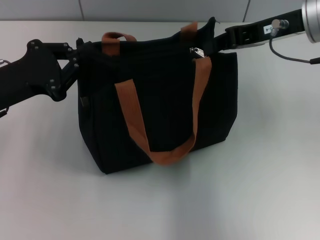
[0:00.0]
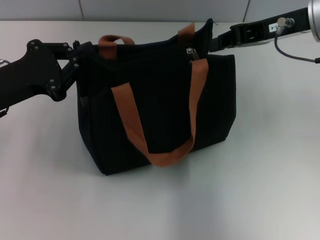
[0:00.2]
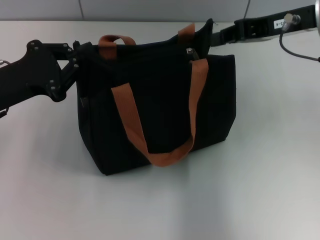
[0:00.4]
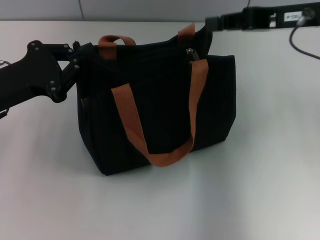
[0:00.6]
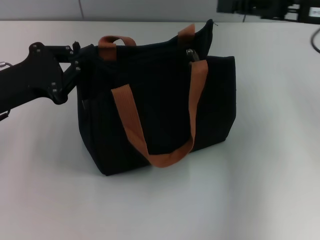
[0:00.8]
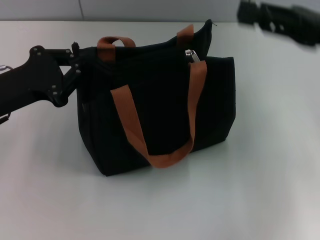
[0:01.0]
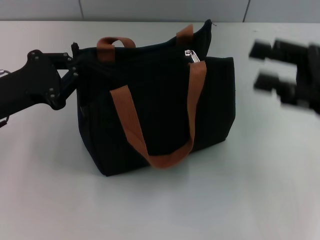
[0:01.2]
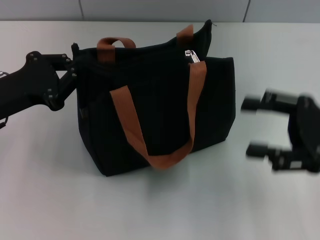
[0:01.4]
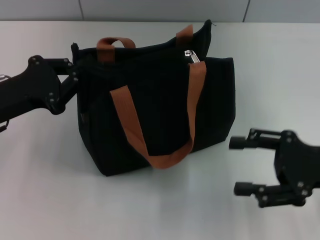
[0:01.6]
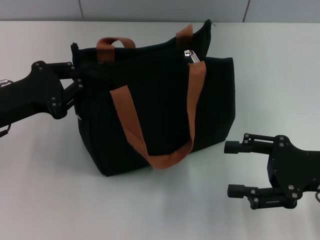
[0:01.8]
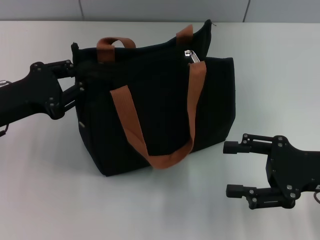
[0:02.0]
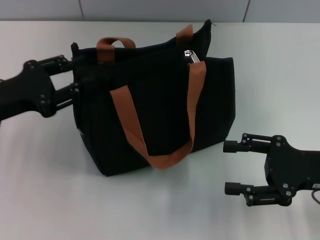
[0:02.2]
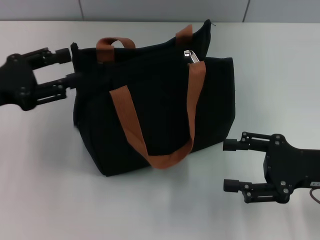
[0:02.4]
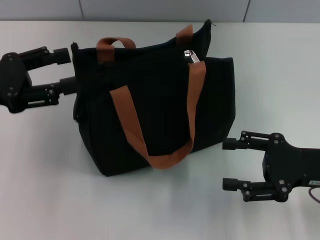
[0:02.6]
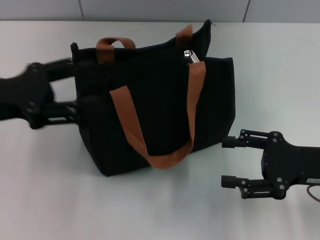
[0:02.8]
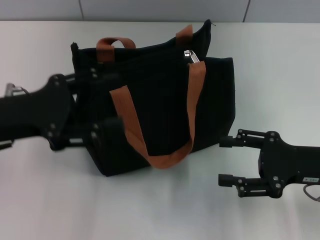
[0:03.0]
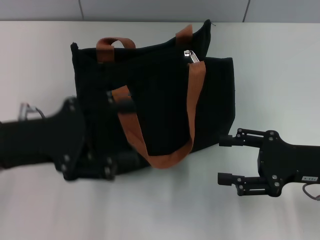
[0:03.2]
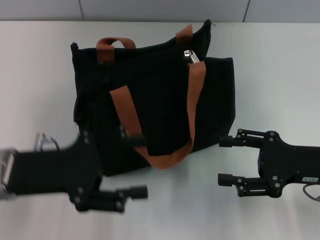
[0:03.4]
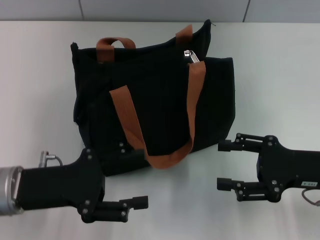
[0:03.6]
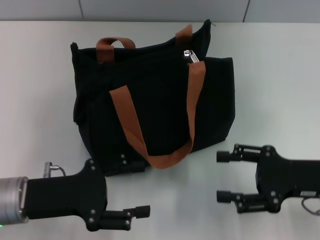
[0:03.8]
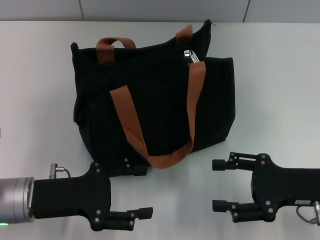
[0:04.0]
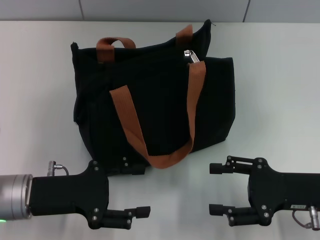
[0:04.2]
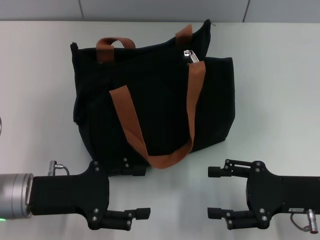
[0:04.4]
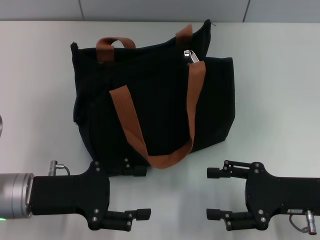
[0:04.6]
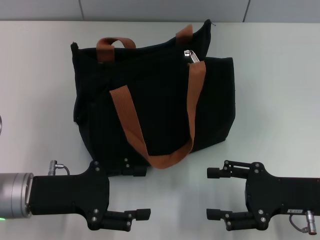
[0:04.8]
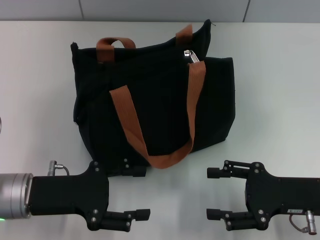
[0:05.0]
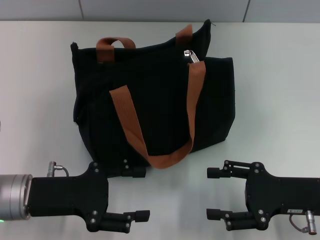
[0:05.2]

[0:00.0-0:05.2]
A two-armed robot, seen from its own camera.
Step, 0:00.4 to 0:02.4: Grab the zipper with your left hand.
0:00.0 to 0:01.8: The right gripper moves backward, downward and to the right, some 20 cm, and opens up.
0:01.8 to 0:03.4: The left gripper goes approximately 5 cm backward, and opens.

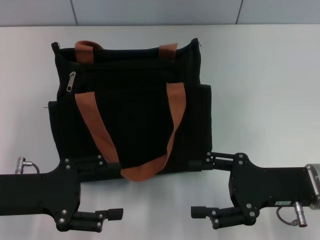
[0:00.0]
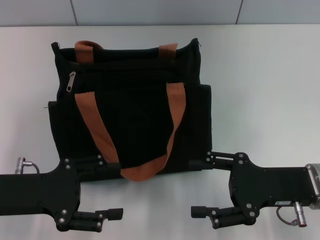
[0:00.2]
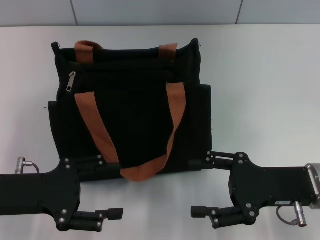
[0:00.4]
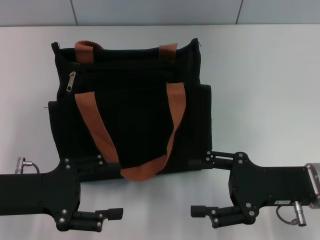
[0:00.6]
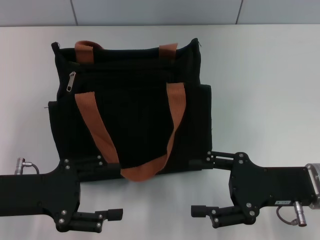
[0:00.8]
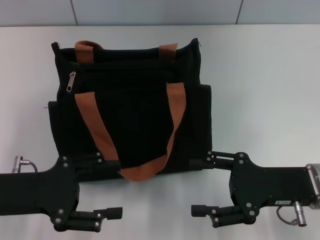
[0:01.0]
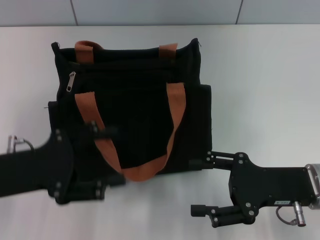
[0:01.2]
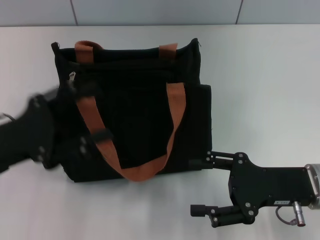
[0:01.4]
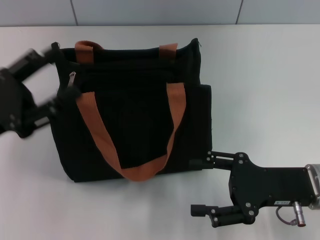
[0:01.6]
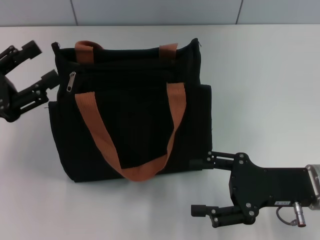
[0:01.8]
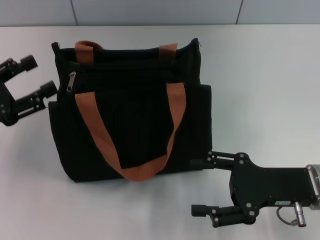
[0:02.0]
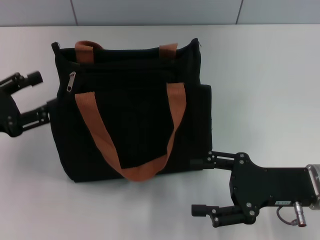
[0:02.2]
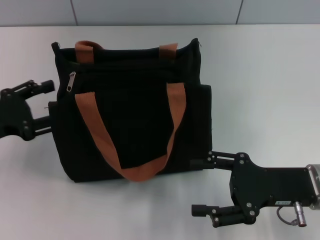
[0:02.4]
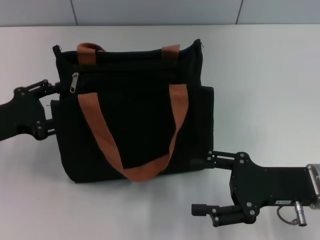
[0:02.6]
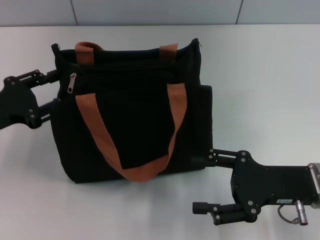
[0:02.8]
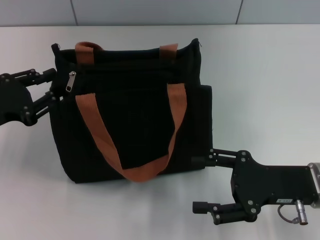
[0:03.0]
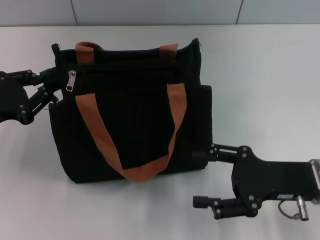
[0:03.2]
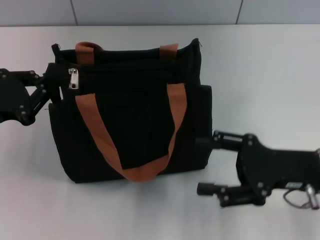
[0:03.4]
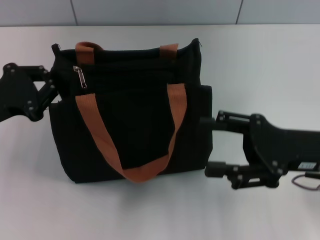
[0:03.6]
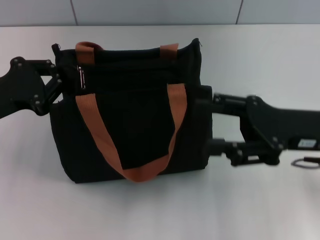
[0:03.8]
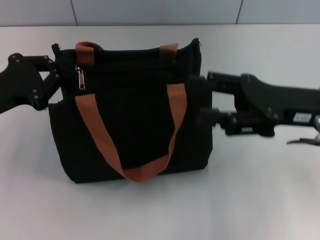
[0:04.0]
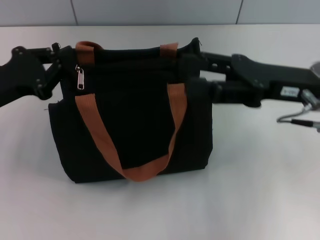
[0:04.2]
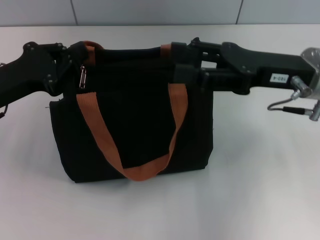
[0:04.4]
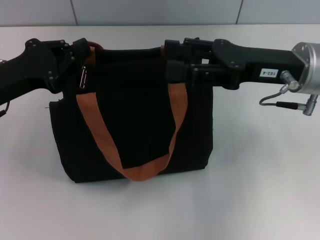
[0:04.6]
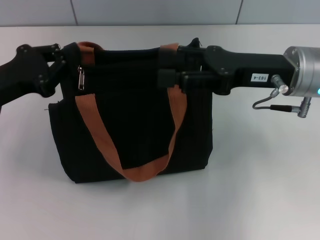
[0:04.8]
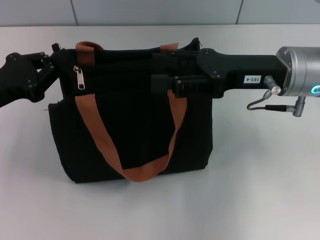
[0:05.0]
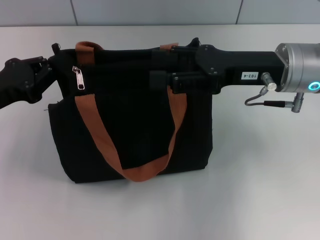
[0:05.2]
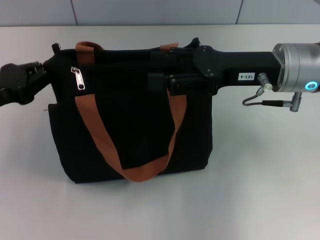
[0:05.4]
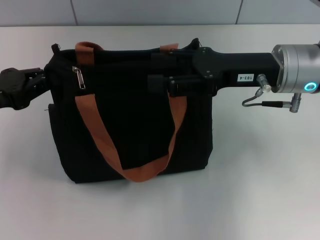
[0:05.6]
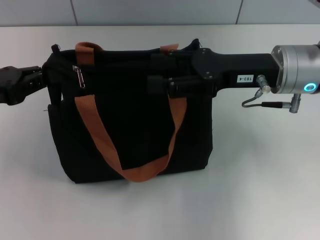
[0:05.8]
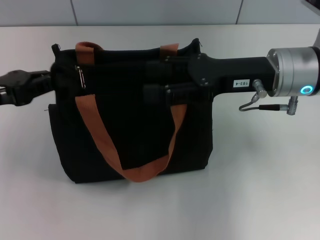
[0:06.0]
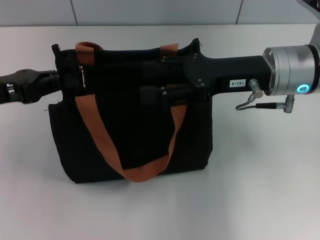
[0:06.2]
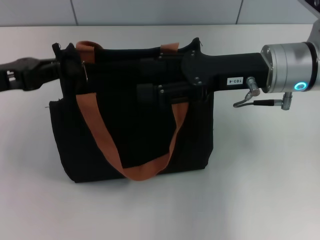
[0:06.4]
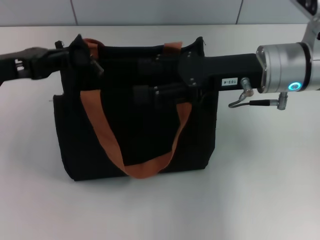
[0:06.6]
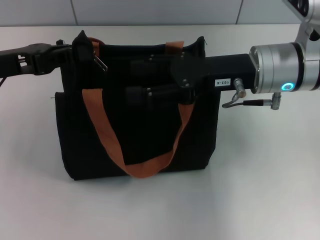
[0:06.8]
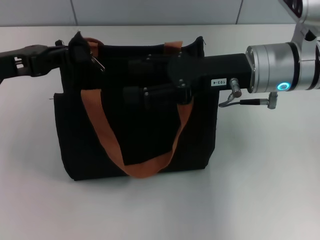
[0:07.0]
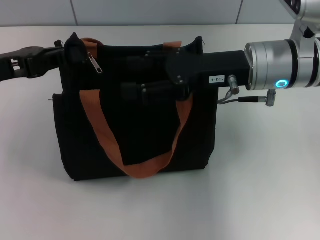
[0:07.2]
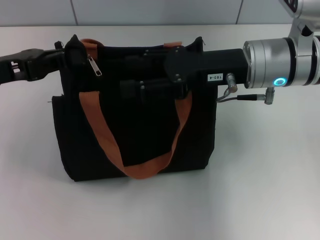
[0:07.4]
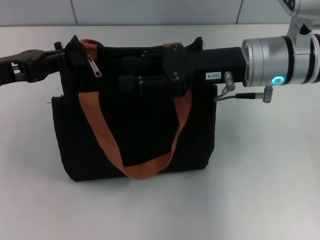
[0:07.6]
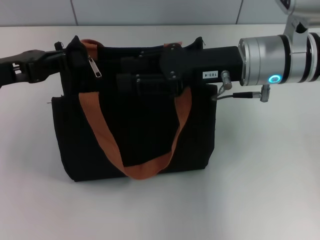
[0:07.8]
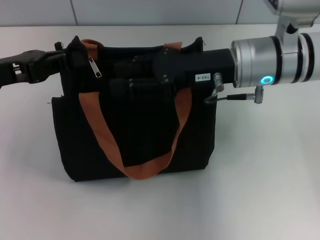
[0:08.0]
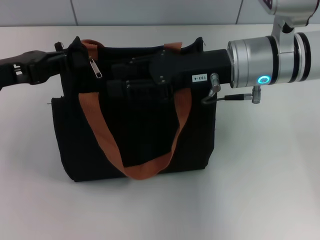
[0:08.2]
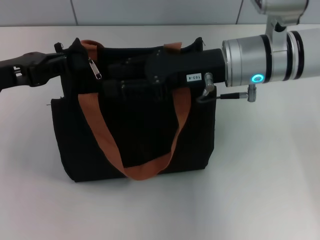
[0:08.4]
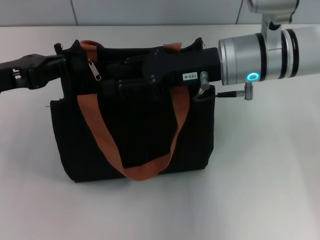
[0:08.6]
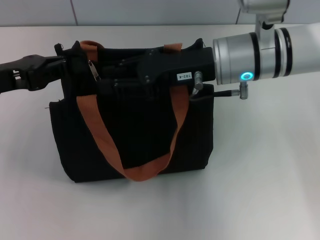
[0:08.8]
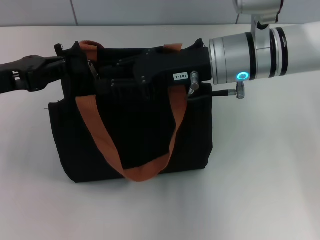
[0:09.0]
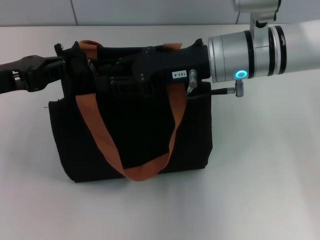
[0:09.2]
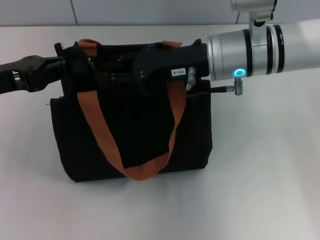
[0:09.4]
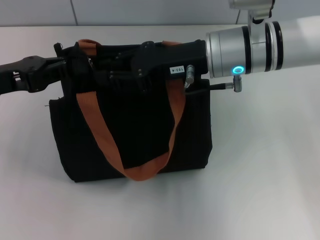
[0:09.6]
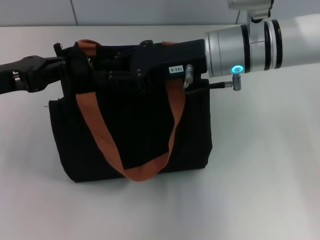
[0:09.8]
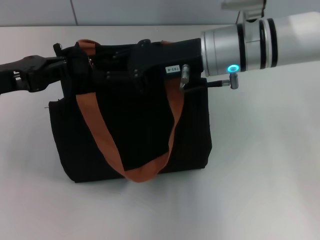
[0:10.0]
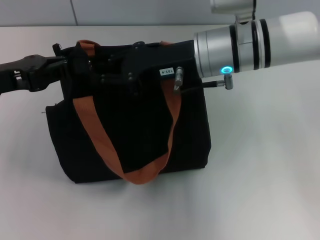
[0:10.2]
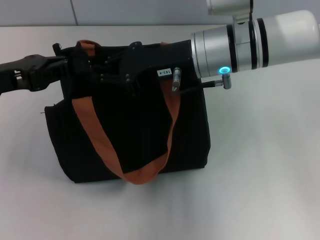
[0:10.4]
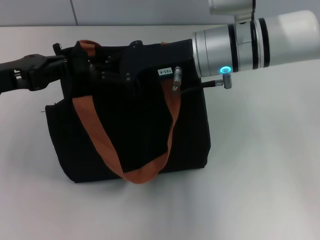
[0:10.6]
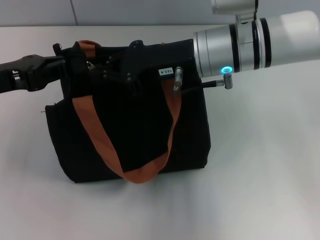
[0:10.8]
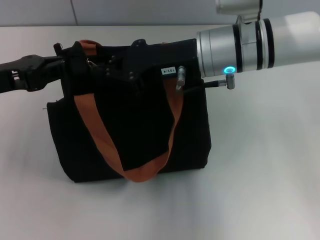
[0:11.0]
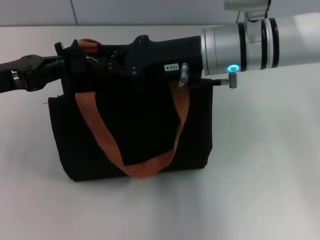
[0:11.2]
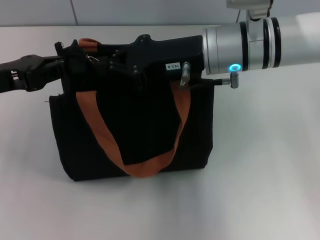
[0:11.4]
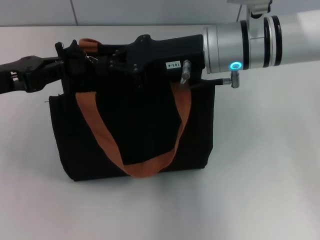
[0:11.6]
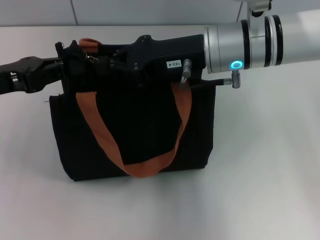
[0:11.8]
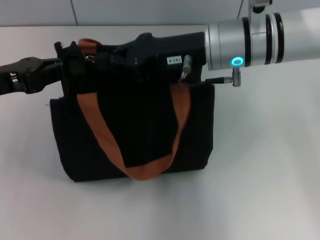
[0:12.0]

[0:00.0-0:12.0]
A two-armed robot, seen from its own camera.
0:01.6 to 0:03.0: The left gripper changes place by some 5 cm.
0:03.0 to 0:04.4: The right gripper travels upward and forward by roughly 15 cm, while the left gripper ends up about 5 cm from where it was, and closes up.
0:06.0 to 0:07.6: The grippers move only a little.
0:07.6 to 0:09.0: The right gripper closes its fingers.
0:09.0 to 0:12.0: The grippers make only small movements.

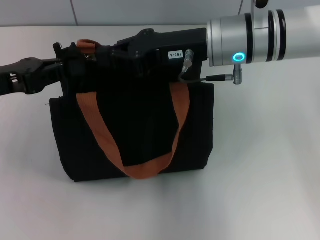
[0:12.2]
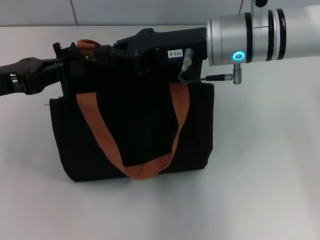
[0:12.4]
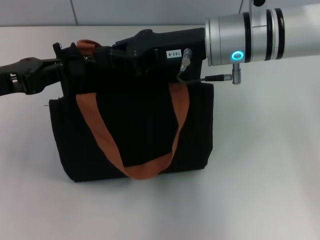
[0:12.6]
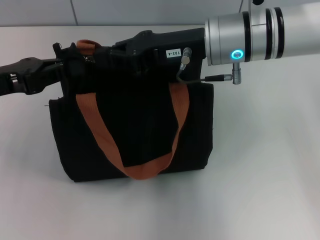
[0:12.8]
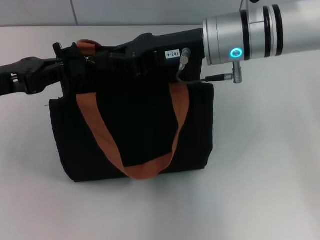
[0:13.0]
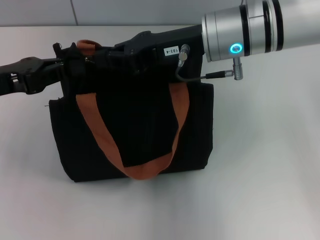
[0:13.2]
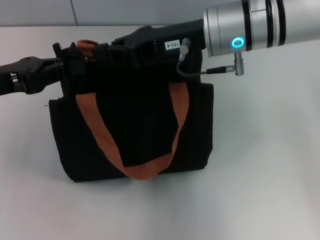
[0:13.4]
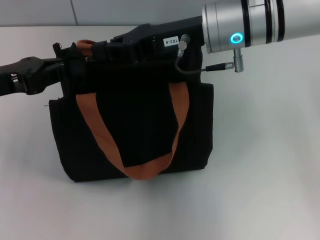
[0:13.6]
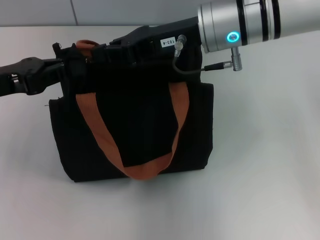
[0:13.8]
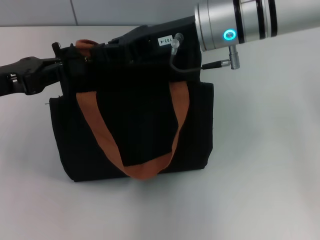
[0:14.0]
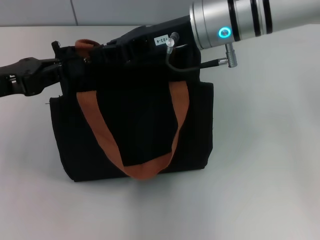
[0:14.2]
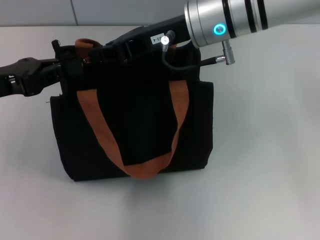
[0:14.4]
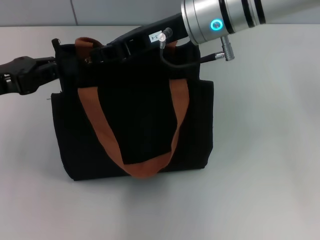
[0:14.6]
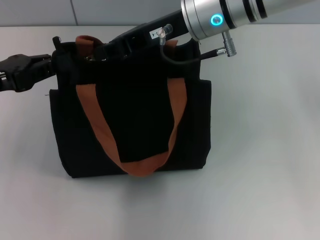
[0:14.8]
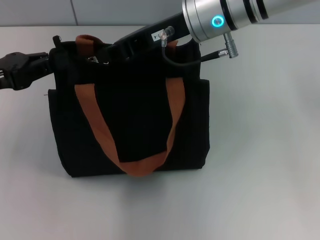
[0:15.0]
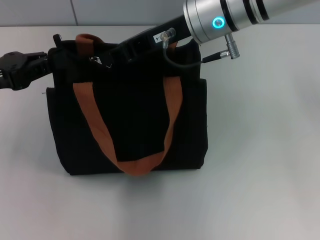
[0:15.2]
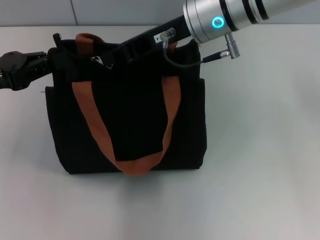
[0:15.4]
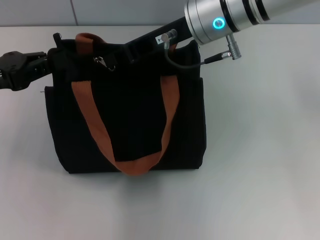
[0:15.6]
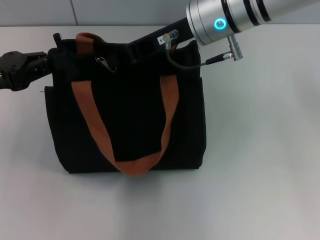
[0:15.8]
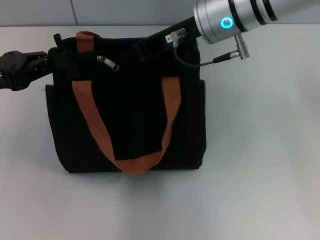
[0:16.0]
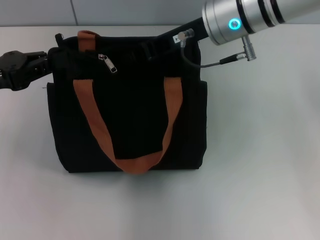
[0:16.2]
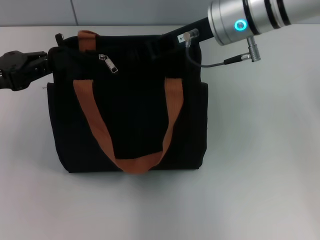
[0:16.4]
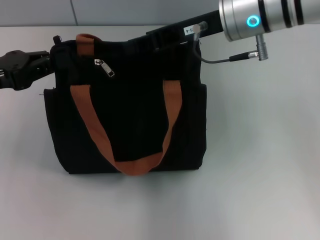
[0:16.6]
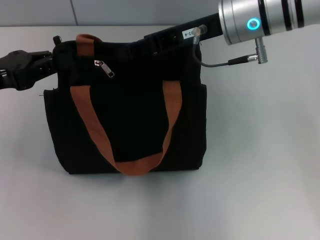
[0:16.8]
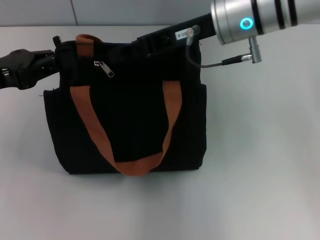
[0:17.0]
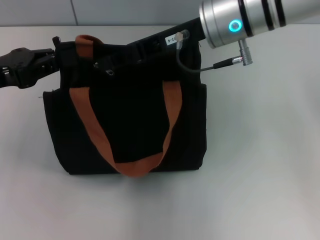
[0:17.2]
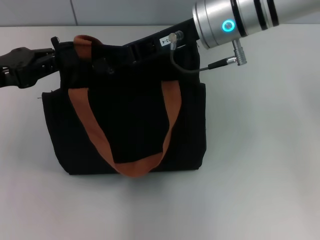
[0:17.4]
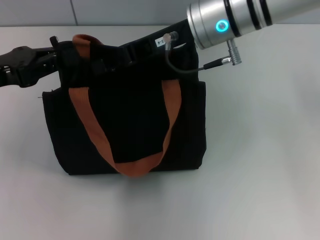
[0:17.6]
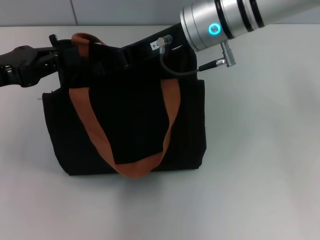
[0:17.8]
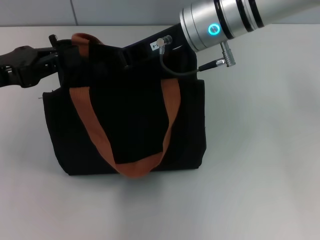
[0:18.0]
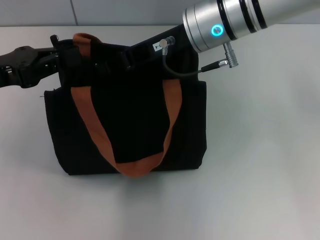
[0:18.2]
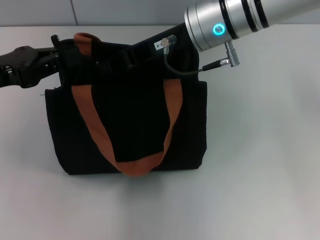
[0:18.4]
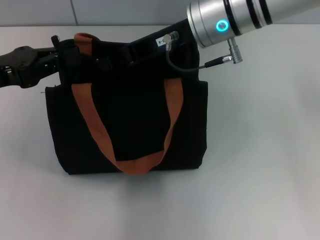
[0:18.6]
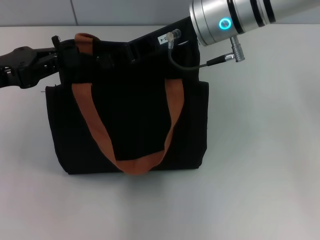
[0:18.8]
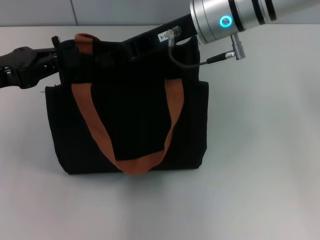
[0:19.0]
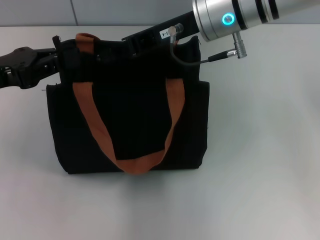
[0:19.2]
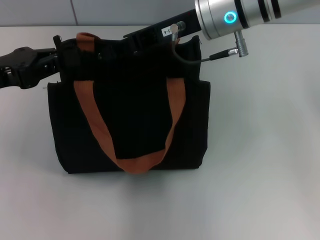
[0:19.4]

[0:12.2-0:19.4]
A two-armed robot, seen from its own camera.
0:12.2 to 0:13.6: There are only small adjustments of the grippers.
0:13.6 to 0:15.0: There are only small adjustments of the grippers.
0:15.0 to 0:19.4: There are only small adjustments of the grippers.
